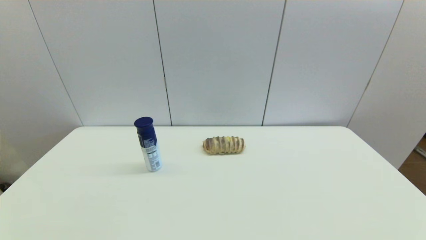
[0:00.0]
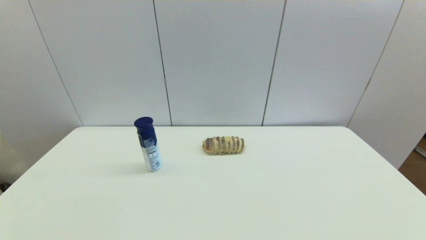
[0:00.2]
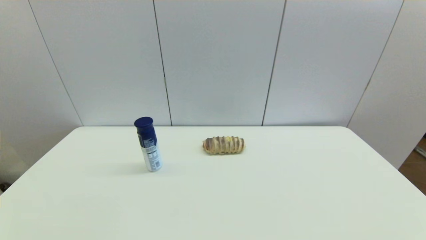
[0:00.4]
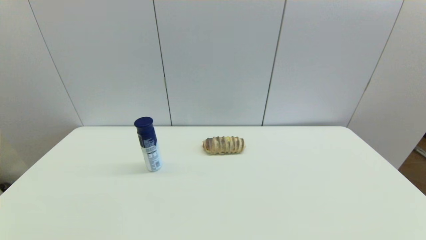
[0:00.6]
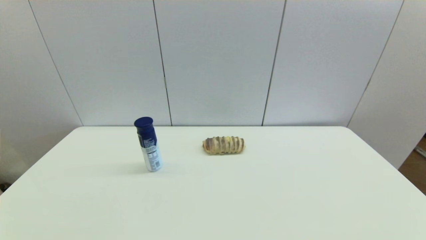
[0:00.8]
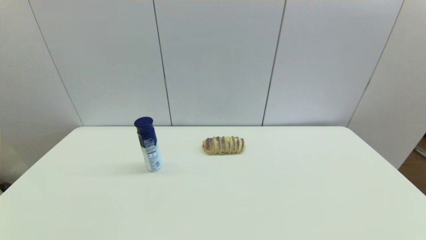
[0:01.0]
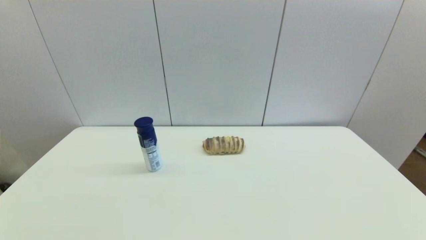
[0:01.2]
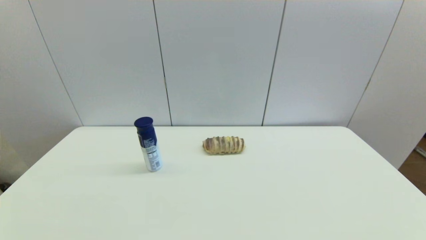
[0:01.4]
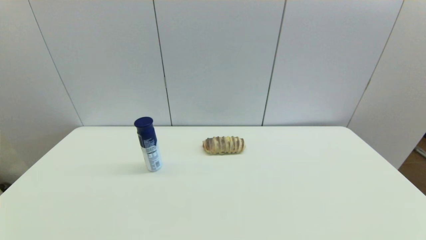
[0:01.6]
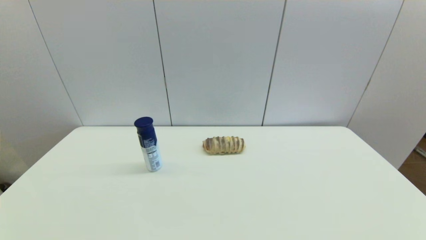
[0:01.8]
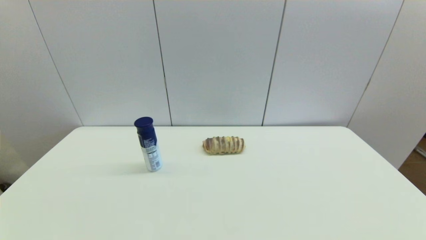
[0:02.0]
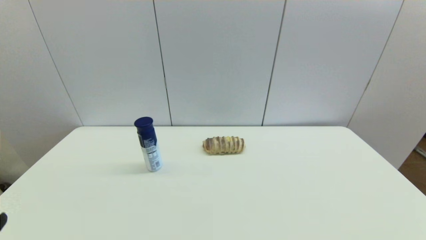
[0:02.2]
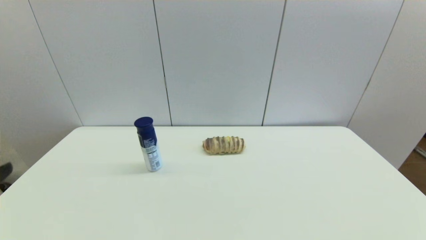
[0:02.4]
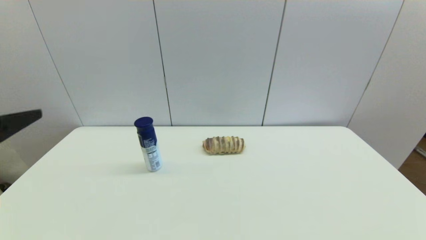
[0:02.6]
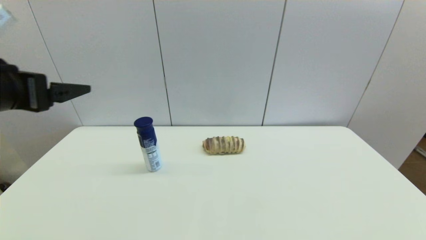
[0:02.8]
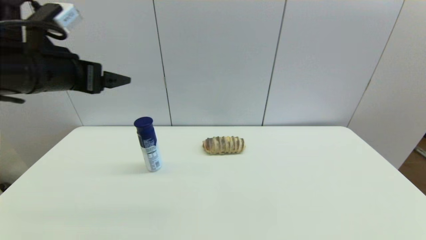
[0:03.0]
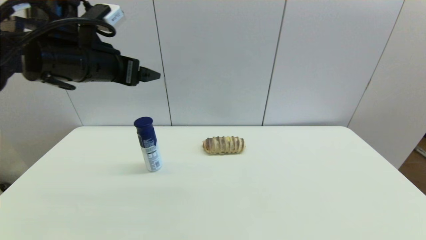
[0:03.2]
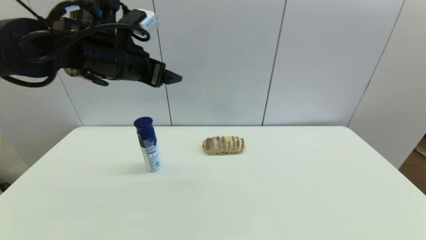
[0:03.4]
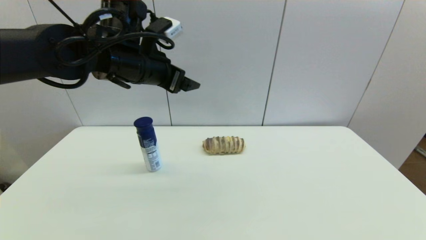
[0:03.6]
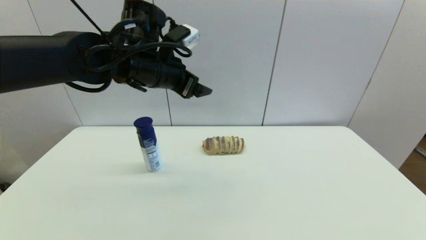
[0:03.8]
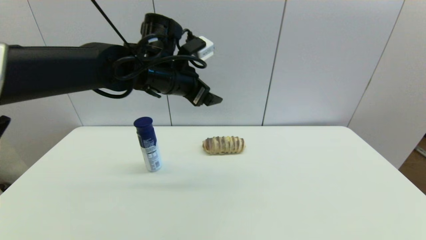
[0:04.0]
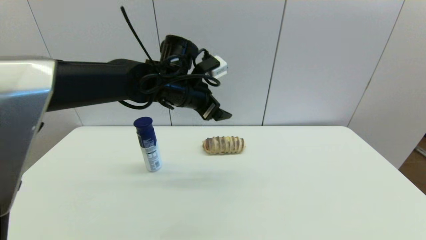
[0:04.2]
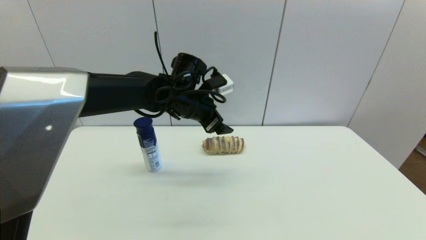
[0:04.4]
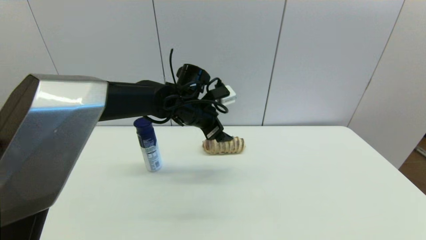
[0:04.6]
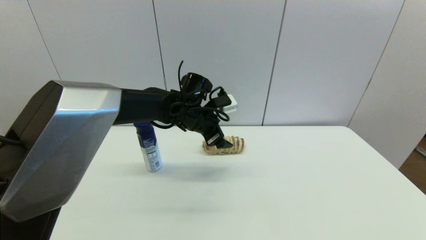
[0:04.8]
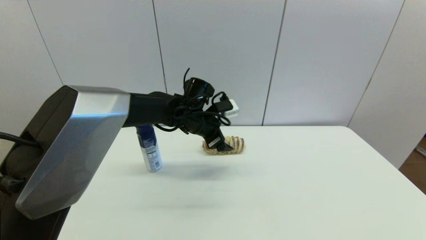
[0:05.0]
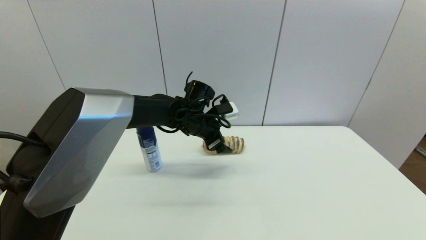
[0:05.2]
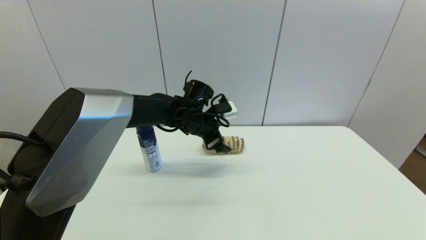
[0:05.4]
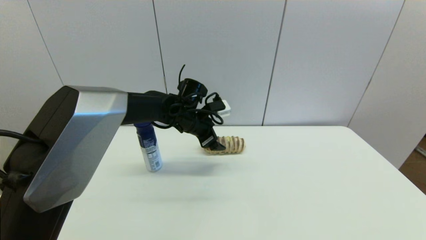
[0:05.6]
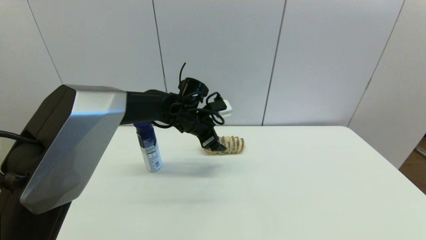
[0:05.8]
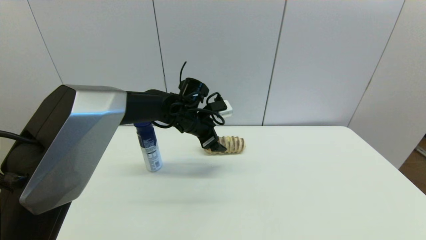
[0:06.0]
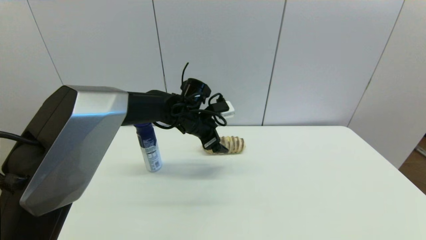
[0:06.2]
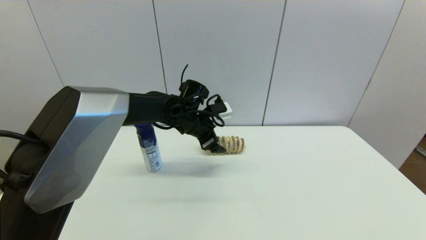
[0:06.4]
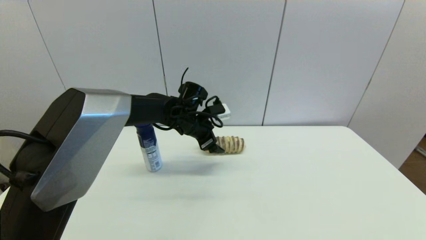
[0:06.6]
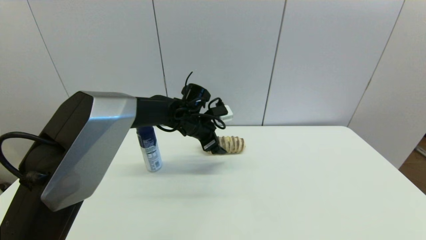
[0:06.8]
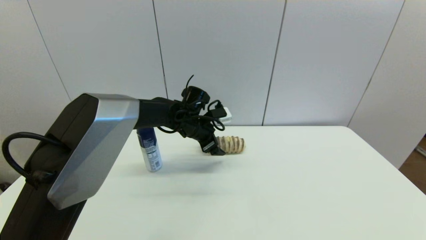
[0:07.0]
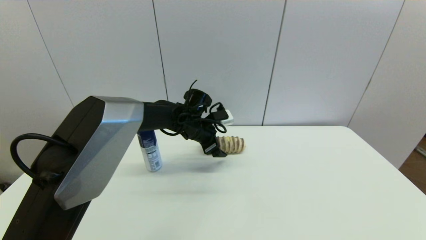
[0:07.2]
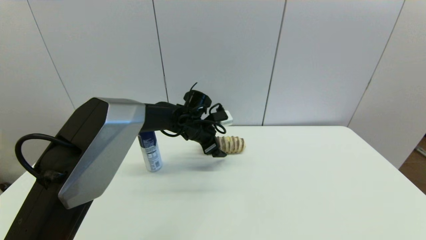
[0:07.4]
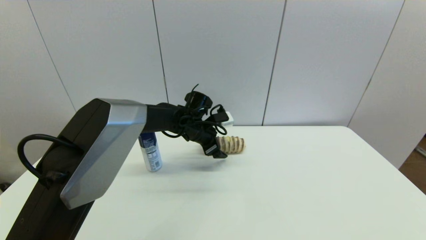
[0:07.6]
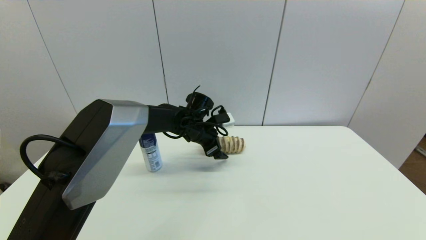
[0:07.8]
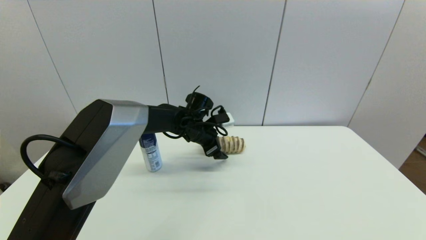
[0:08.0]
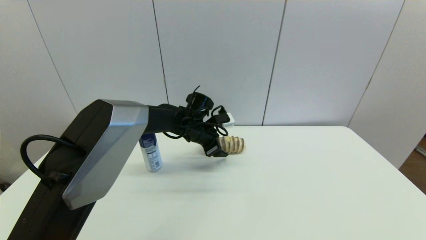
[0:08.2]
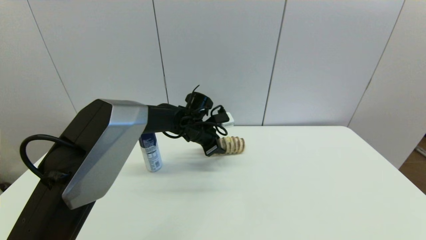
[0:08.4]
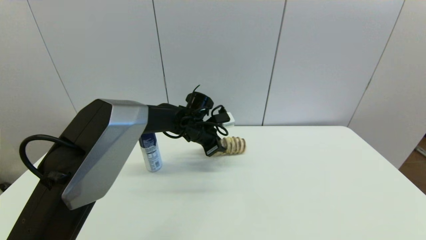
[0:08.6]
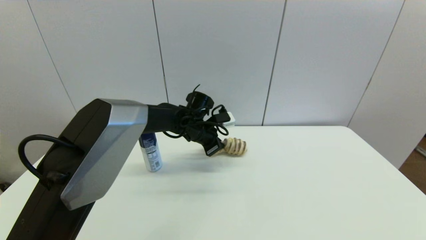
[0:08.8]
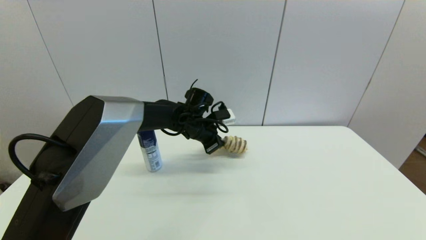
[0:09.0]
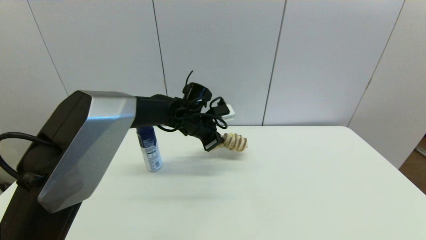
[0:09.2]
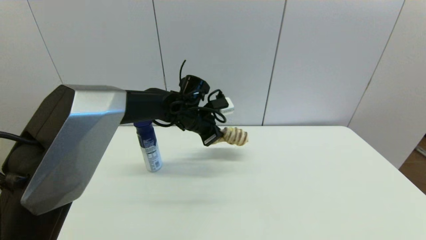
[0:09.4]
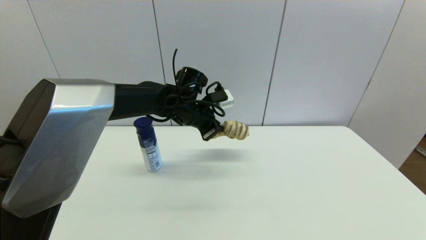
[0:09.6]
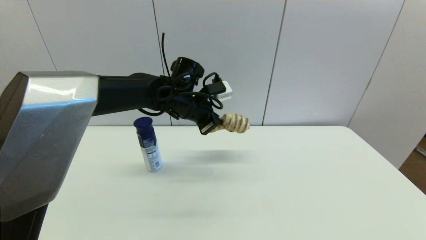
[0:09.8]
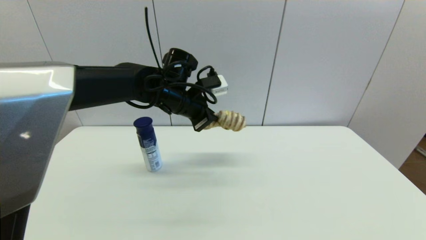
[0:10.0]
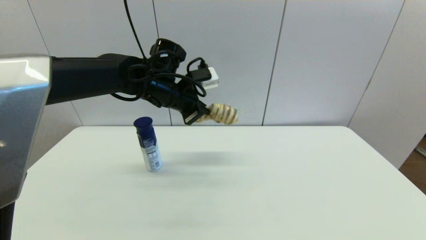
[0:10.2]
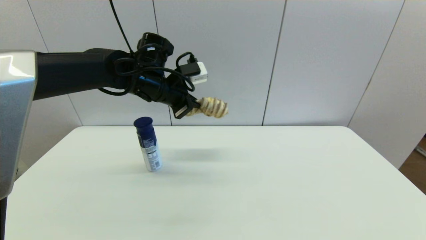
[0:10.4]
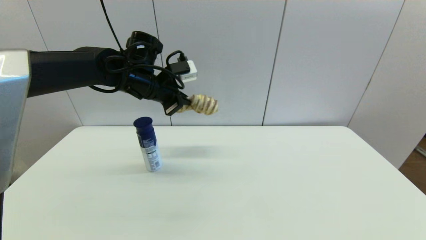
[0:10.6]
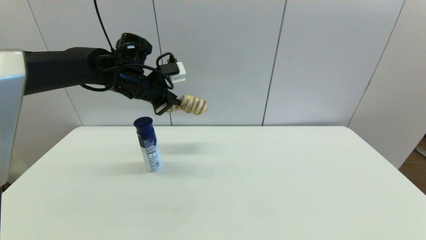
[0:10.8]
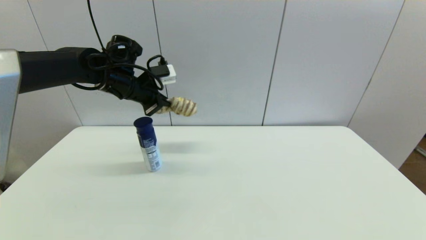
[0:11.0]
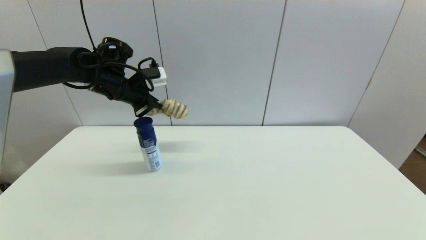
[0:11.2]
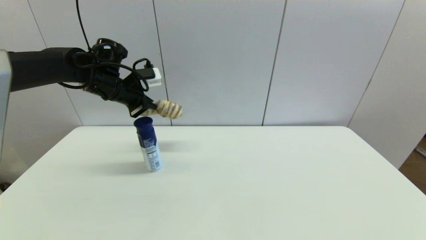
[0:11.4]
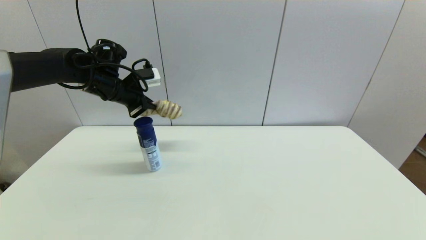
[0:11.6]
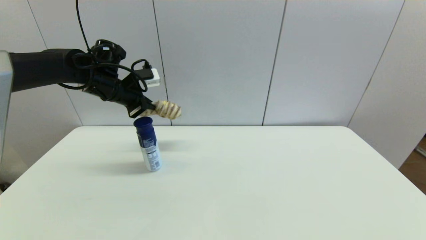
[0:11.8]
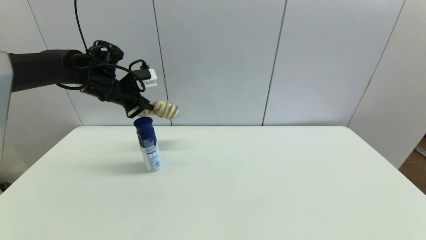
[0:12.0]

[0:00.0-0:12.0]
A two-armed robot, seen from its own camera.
Step, 0:02.2 to 0:08.8: Grasp the long bread with left gripper.
0:00.0 to 0:01.6: The two grippers keep their place.
0:01.6 to 0:03.0: The left gripper is displaced forward and upward by approximately 35 cm.
0:03.0 to 0:04.4: The left gripper heads to the right, forward and downward, covering about 25 cm.
0:04.4 to 0:06.0: The left gripper shifts approximately 5 cm downward.
0:06.0 to 0:07.6: The grippers stay close to where they were, moving slightly.
0:07.6 to 0:09.0: The left gripper closes its fingers.
0:09.0 to 0:10.4: The left gripper travels upward and to the left by some 15 cm.
0:10.4 to 0:12.0: The left gripper travels to the left by some 10 cm.

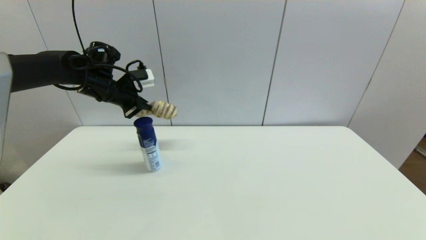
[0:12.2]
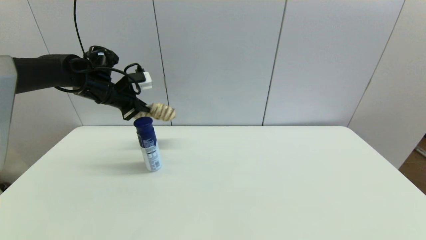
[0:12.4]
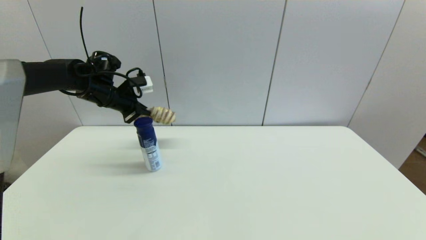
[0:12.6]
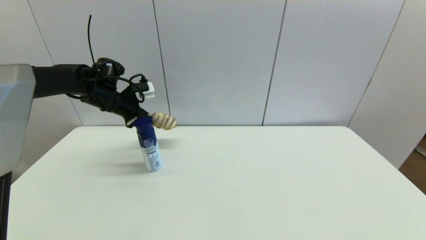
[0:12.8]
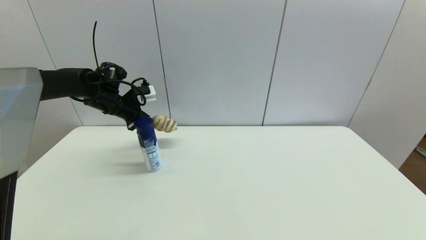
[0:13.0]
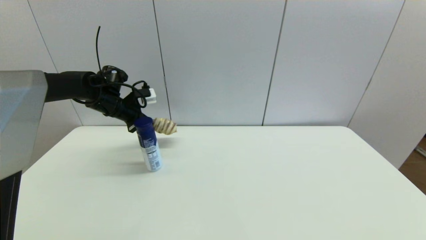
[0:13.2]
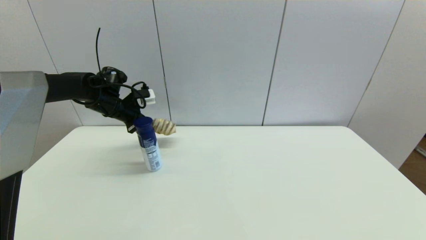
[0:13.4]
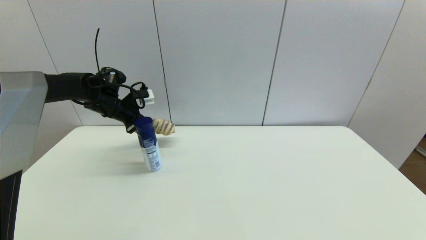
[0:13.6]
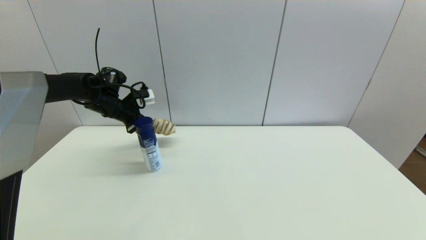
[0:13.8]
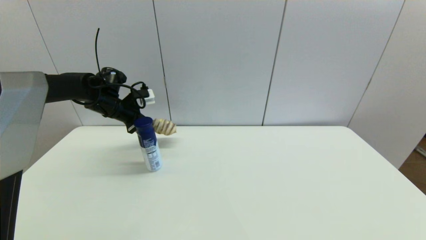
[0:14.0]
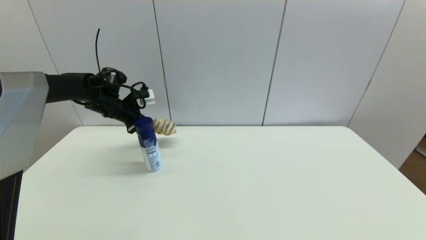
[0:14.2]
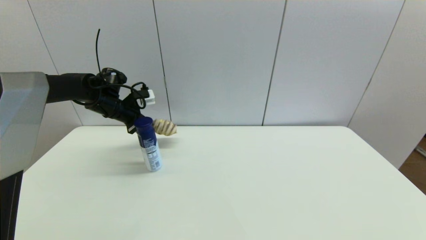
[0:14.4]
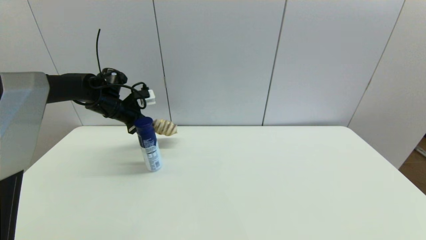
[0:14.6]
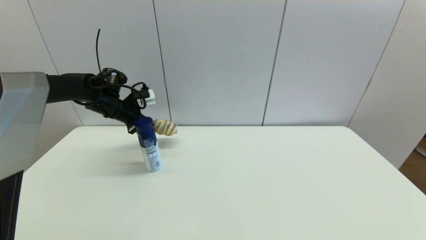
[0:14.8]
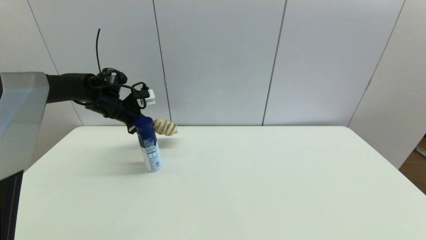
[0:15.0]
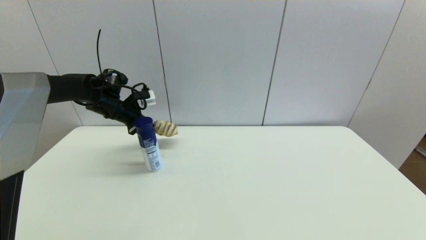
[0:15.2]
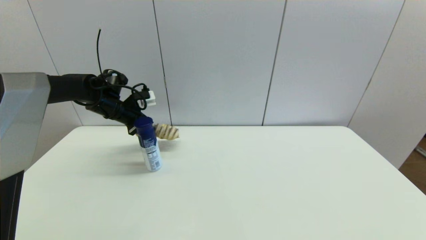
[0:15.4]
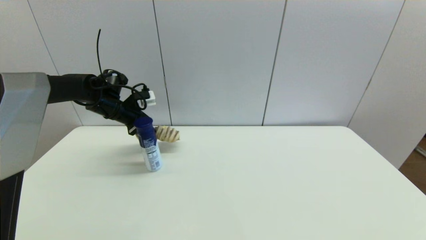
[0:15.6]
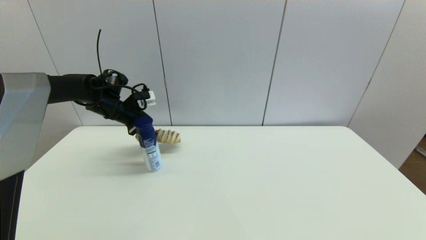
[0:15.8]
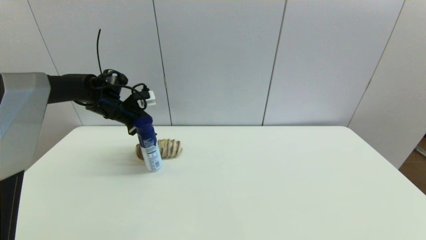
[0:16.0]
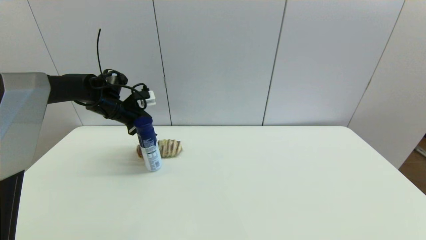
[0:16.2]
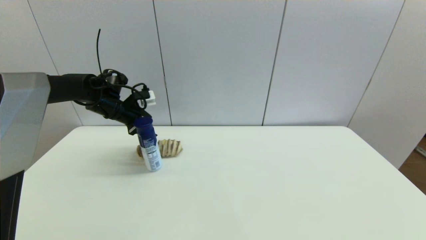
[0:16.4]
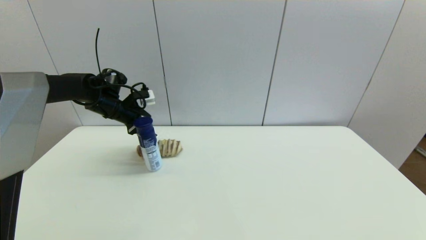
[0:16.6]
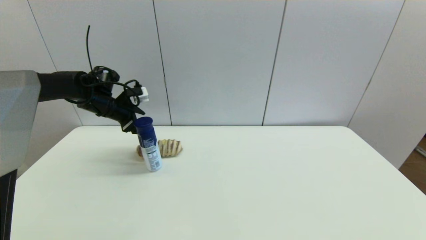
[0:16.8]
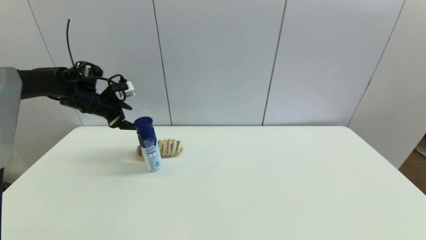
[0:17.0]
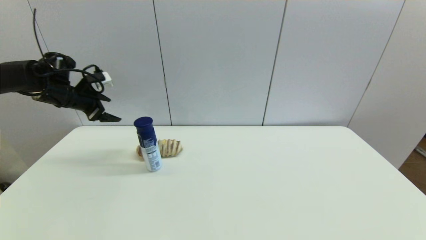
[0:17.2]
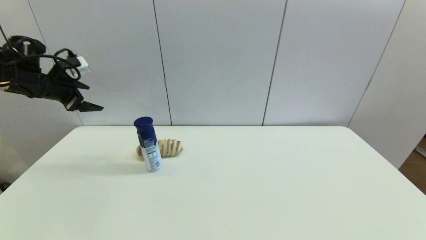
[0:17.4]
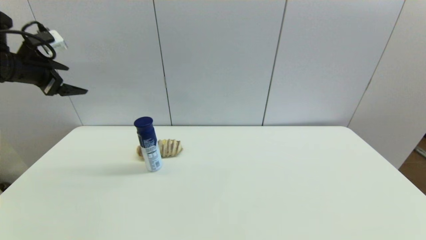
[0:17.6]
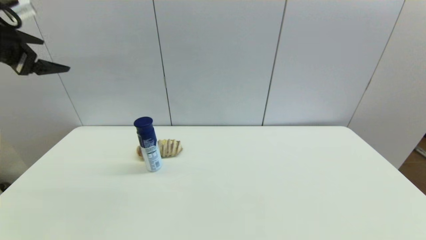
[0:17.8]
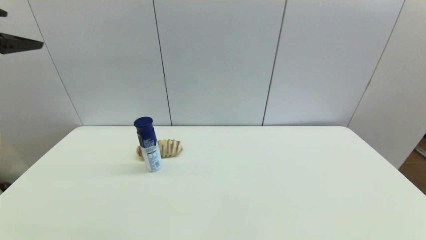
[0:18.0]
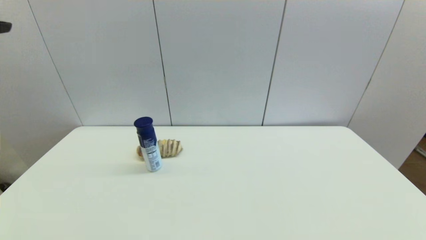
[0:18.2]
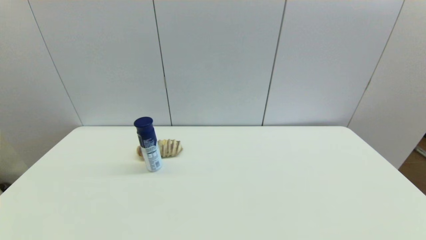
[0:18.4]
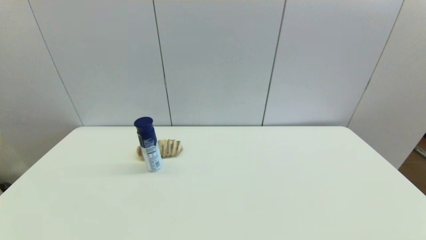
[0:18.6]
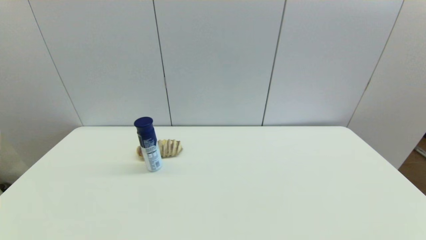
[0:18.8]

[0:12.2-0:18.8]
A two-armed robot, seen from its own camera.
Step, 0:12.2 to 0:15.8: Place the long bread on the table with left gripper.
0:12.2 to 0:13.8: The left gripper heads downward, covering some 5 cm.
0:13.8 to 0:15.4: The left gripper opens its fingers.
0:15.4 to 0:17.2: The left gripper is displaced to the left and upward by some 10 cm, and opens.
0:17.2 to 0:18.8: The left gripper moves backward, approximately 40 cm.
